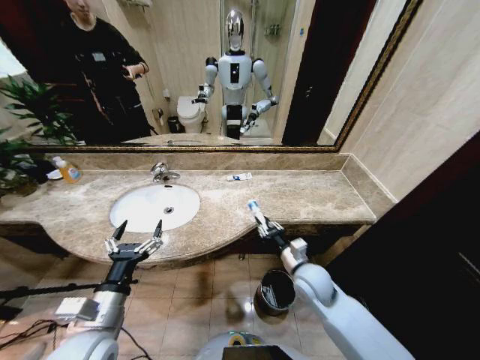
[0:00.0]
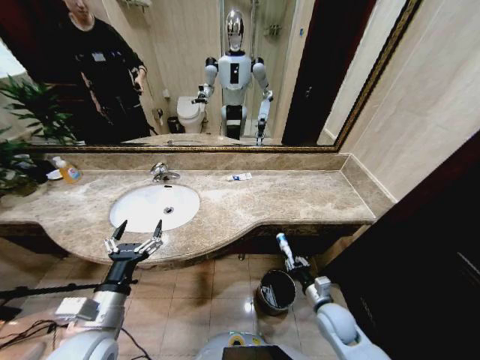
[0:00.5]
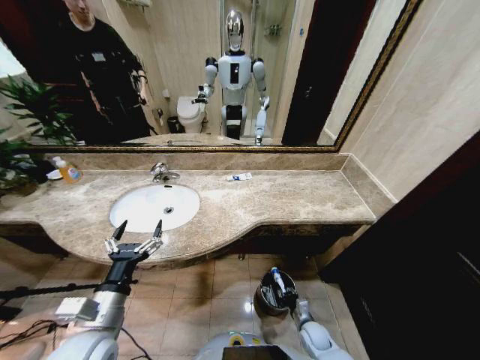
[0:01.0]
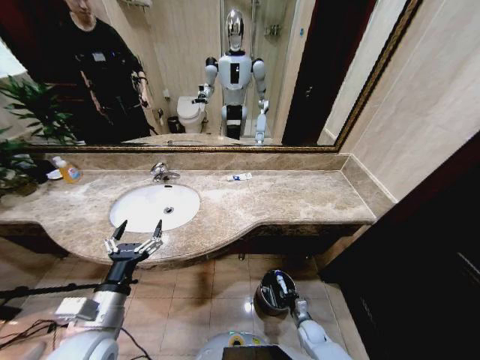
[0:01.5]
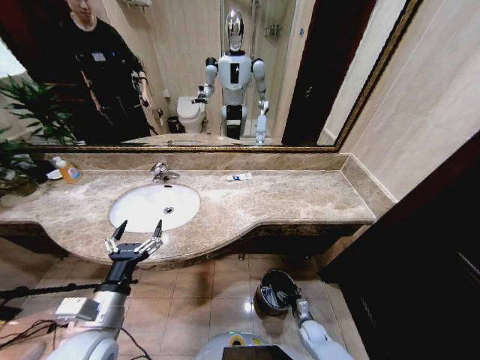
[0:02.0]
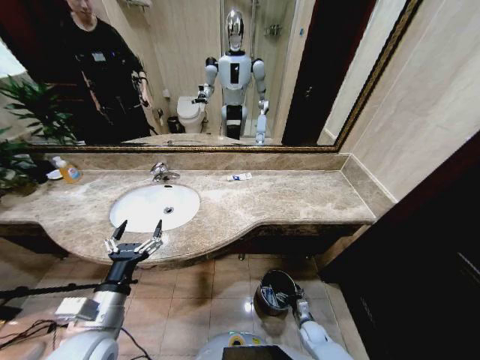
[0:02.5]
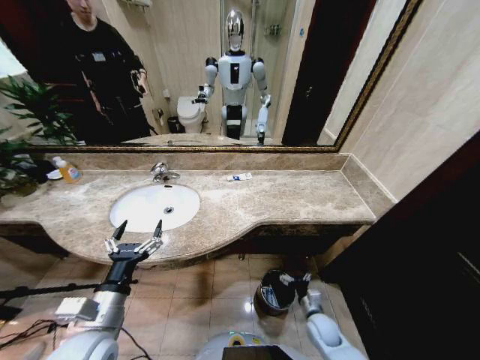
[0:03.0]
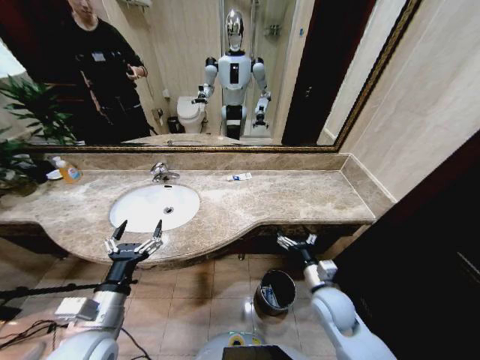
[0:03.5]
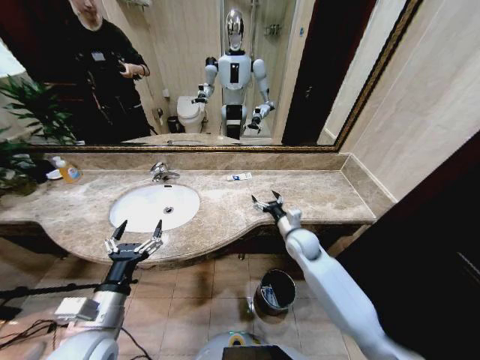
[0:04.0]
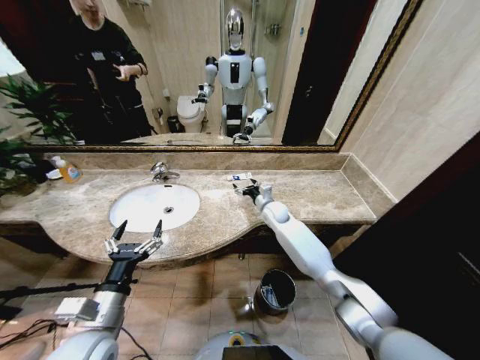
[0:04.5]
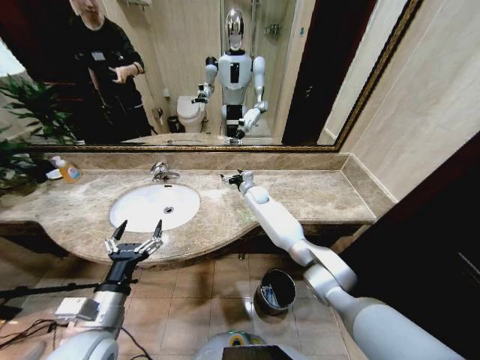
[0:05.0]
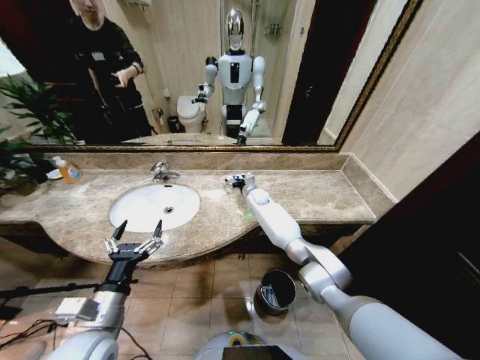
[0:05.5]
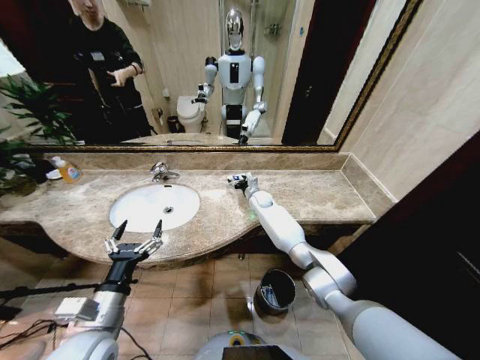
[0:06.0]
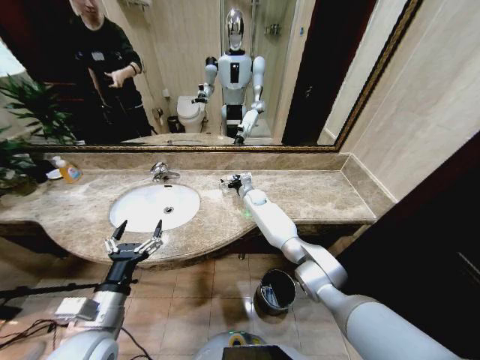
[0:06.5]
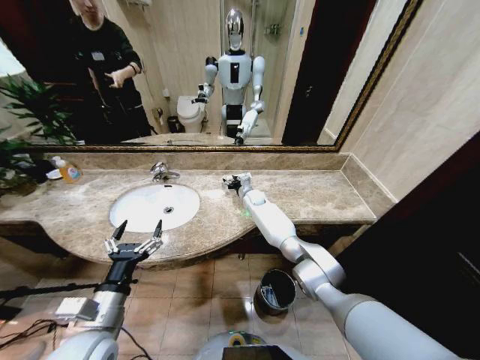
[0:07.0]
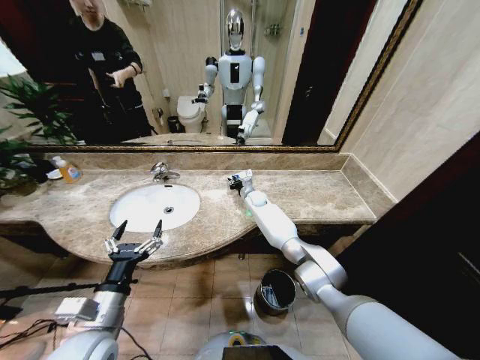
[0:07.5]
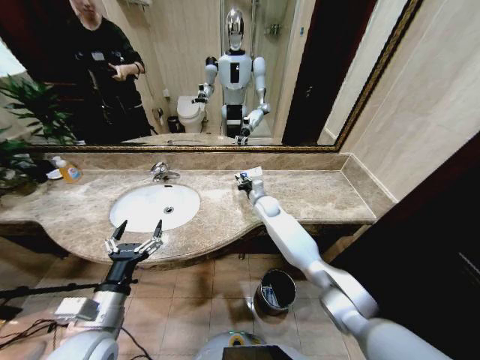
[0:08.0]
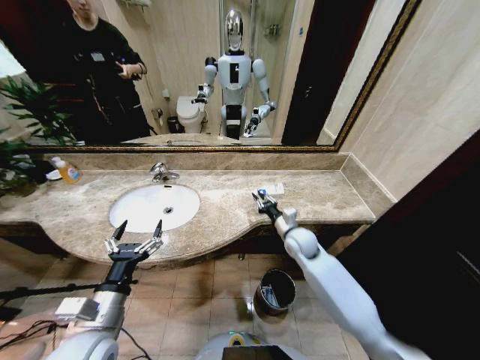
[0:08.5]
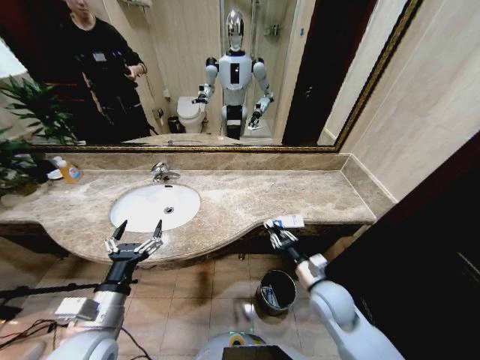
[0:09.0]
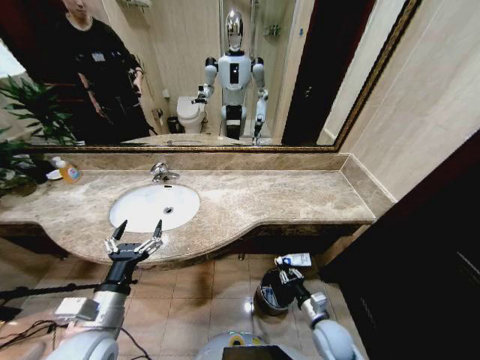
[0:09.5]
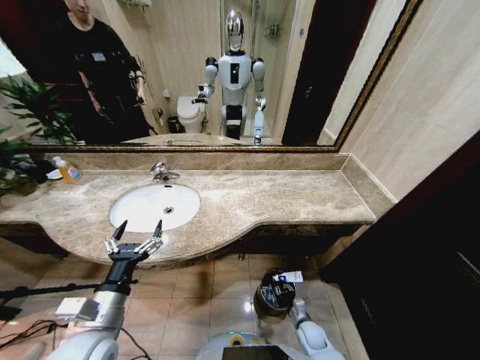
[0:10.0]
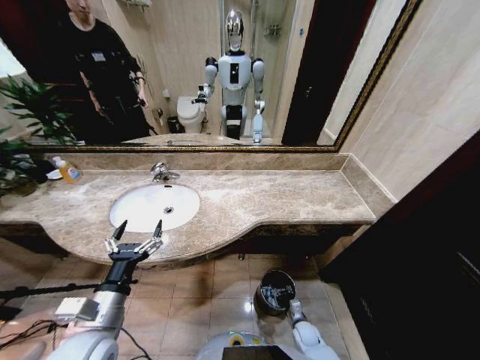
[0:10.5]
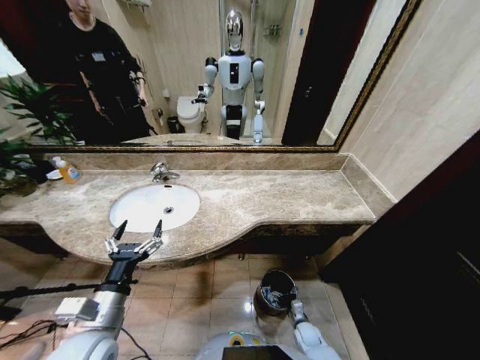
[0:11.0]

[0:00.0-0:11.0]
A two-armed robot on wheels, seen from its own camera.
Task of the whole recording: Pick up the trash from the sink and place it in the trash bin.
0:00.0 to 0:02.0: The right gripper heads downward, covering some 35 cm, and opens.
0:02.0 to 0:03.5: The right gripper is displaced upward by about 30 cm.
0:03.5 to 0:05.5: The right gripper heads forward, covering some 40 cm.
0:05.5 to 0:07.5: The right gripper closes its fingers.
0:07.5 to 0:09.0: The right gripper shifts about 40 cm backward.
0:09.0 to 0:11.0: The right gripper heads downward, covering roughly 30 cm, and opens.

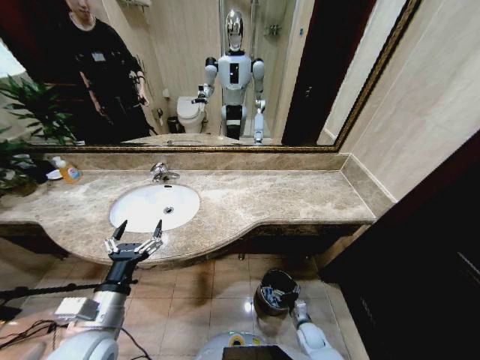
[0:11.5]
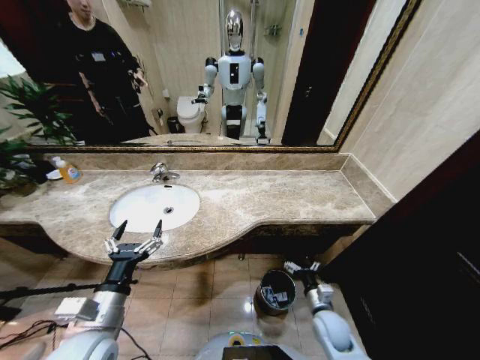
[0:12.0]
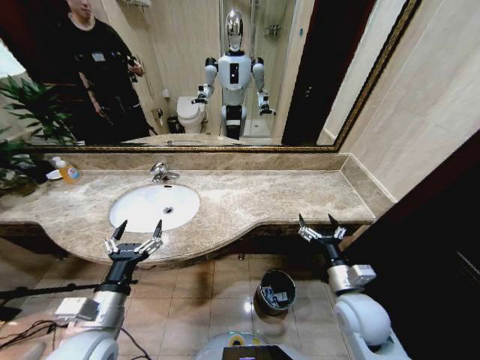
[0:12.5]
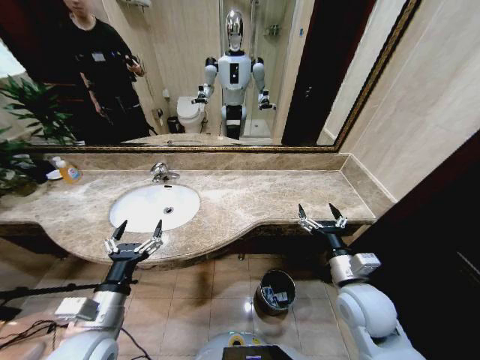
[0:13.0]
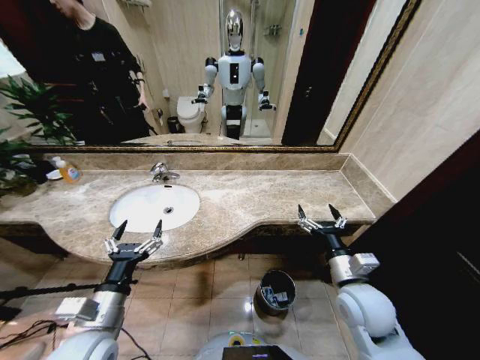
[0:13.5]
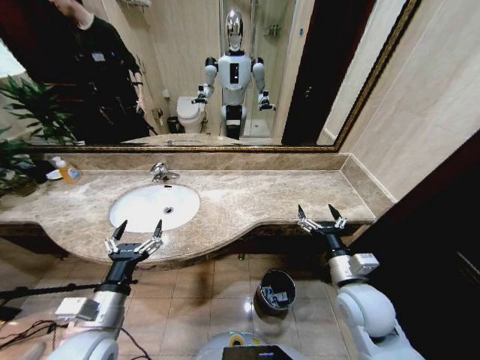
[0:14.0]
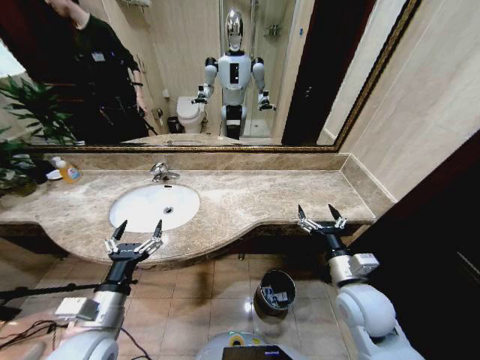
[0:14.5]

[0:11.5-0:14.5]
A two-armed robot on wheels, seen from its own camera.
Task of the whole recording: Pick up the trash from the sink and place it in the trash bin.
0:11.5 to 0:13.0: The right gripper is displaced upward by roughly 40 cm.
0:13.0 to 0:14.5: Both grippers stay put.
